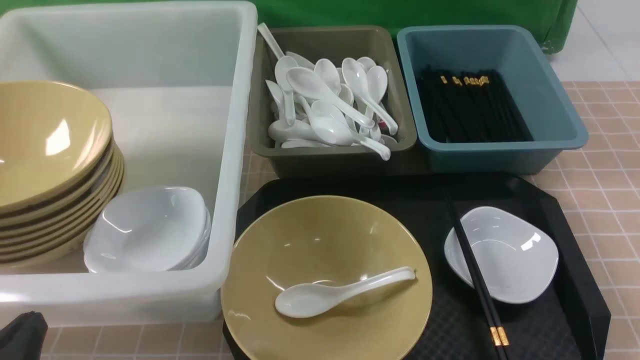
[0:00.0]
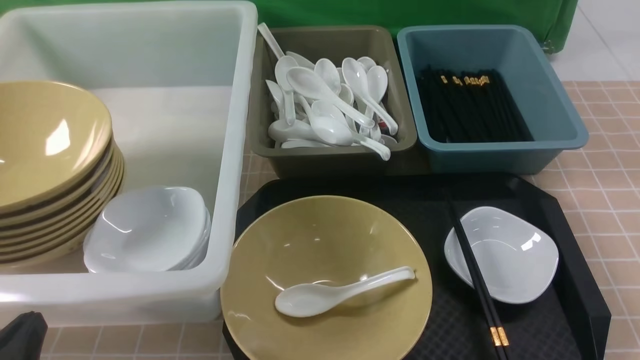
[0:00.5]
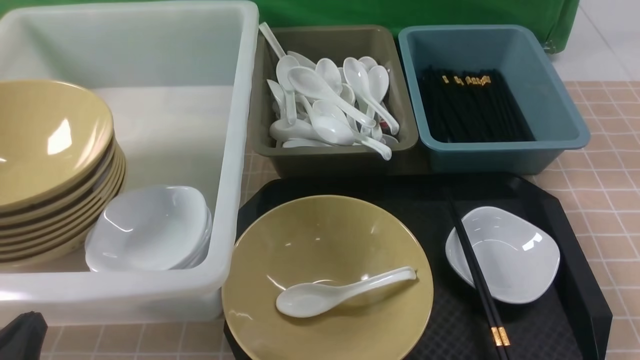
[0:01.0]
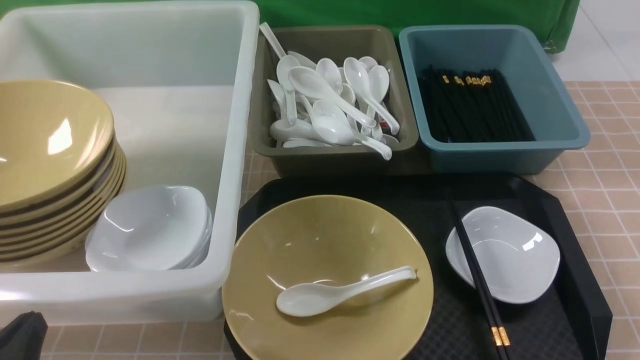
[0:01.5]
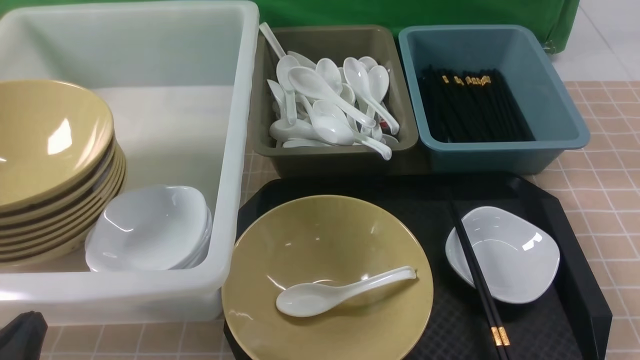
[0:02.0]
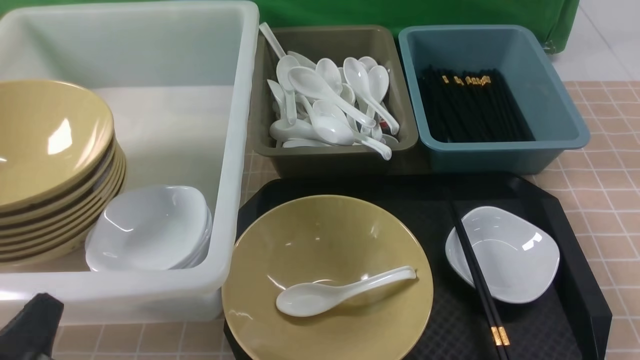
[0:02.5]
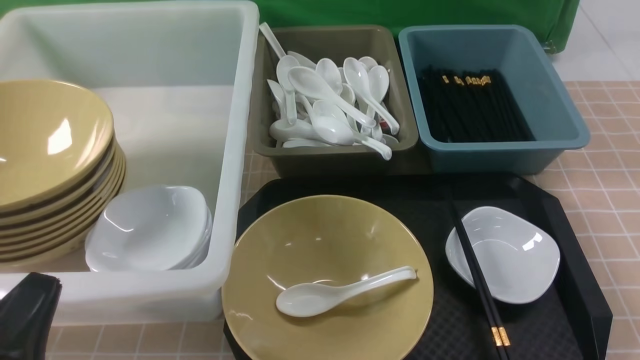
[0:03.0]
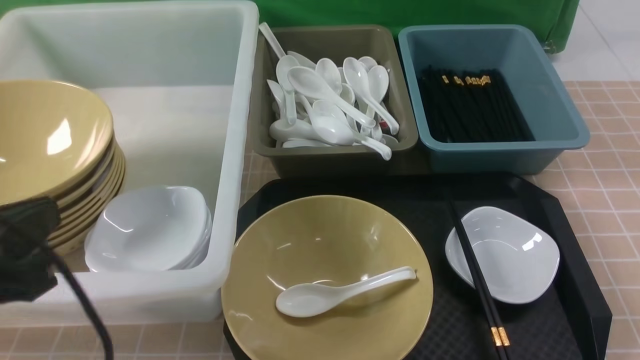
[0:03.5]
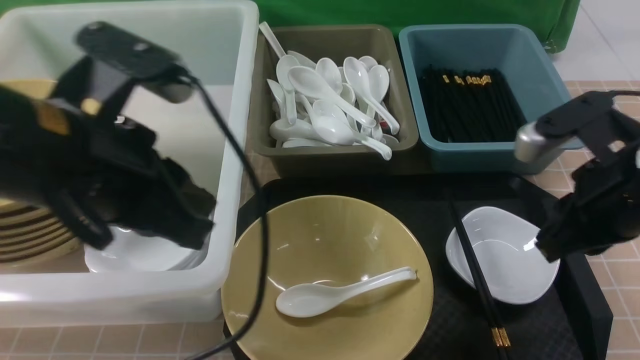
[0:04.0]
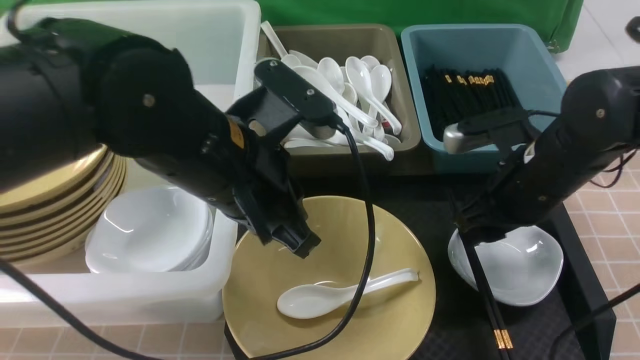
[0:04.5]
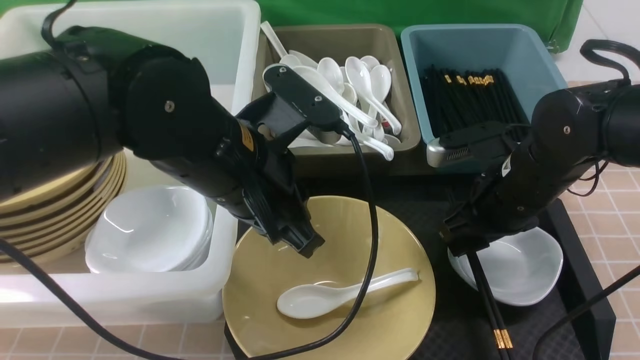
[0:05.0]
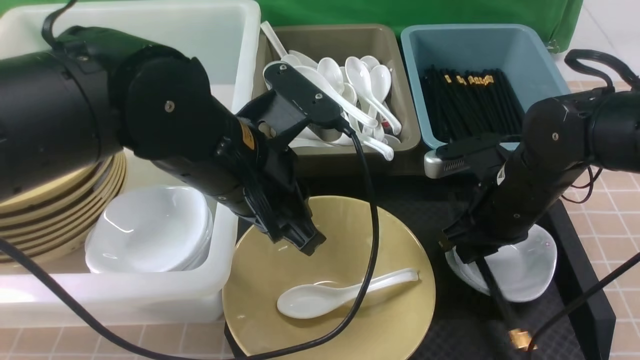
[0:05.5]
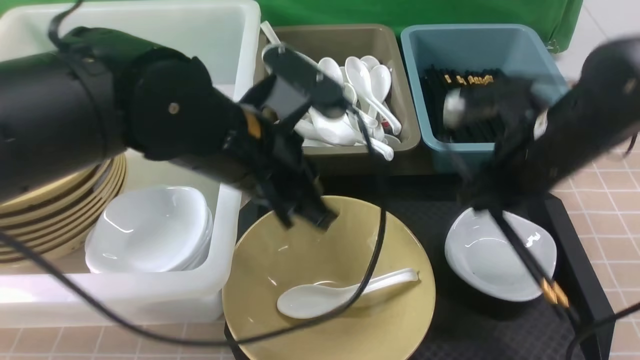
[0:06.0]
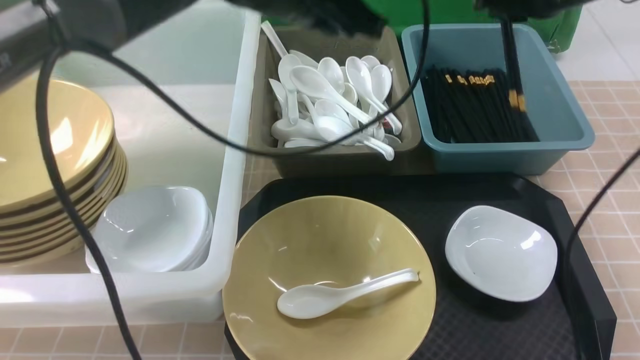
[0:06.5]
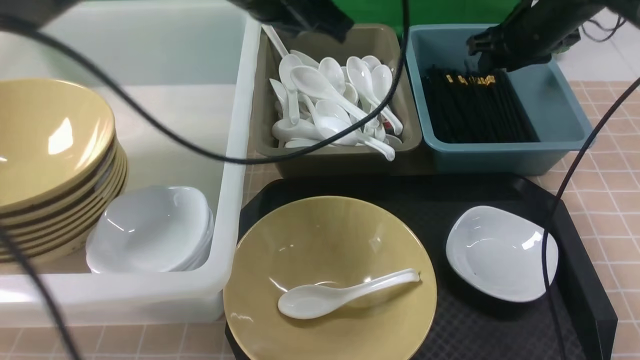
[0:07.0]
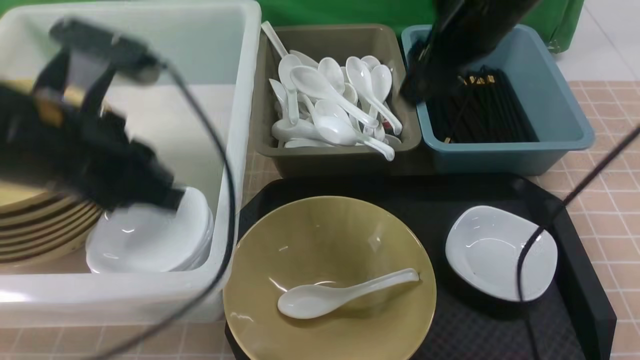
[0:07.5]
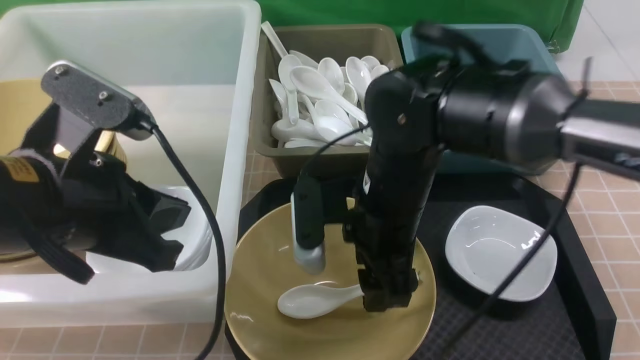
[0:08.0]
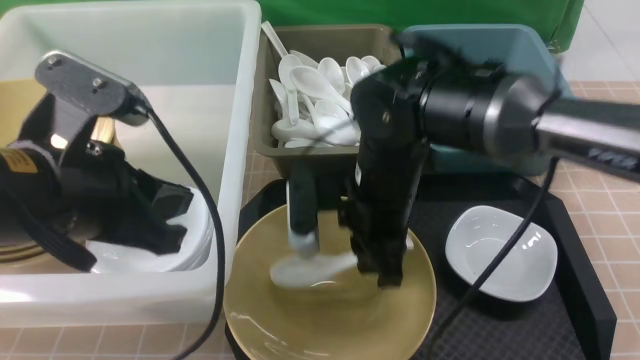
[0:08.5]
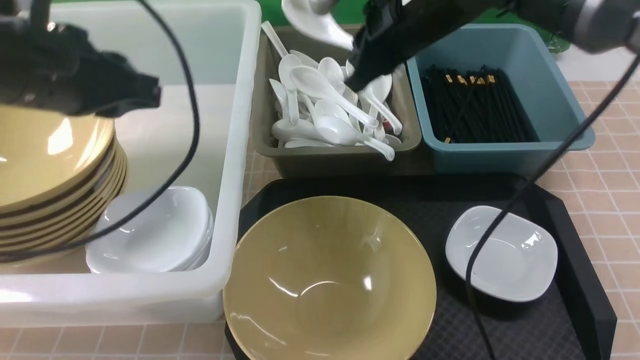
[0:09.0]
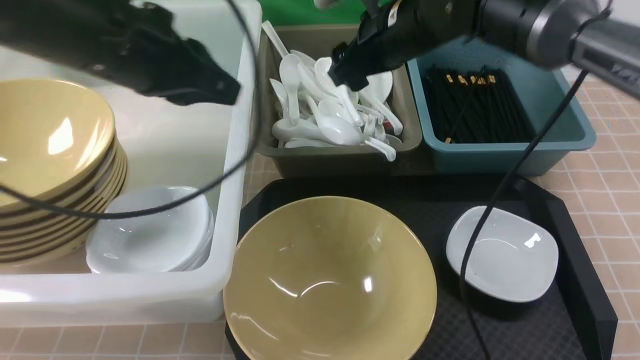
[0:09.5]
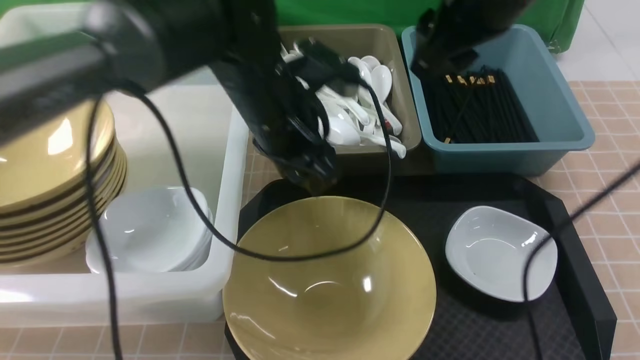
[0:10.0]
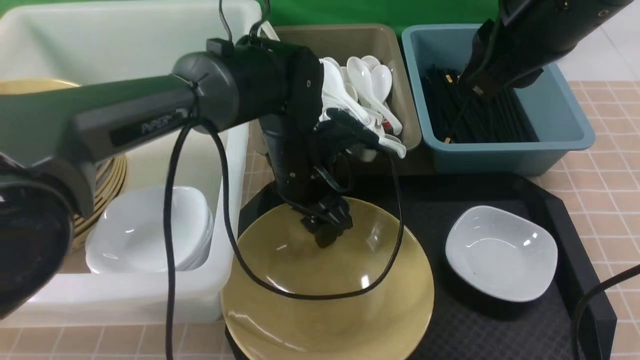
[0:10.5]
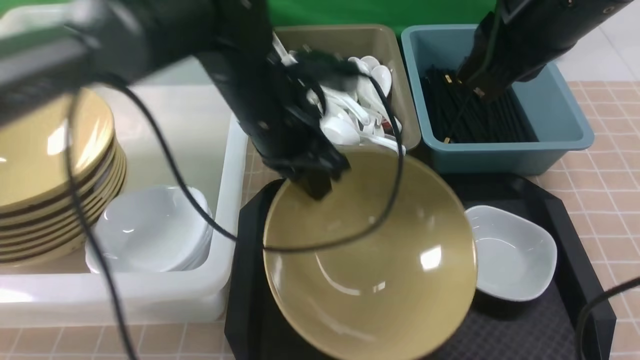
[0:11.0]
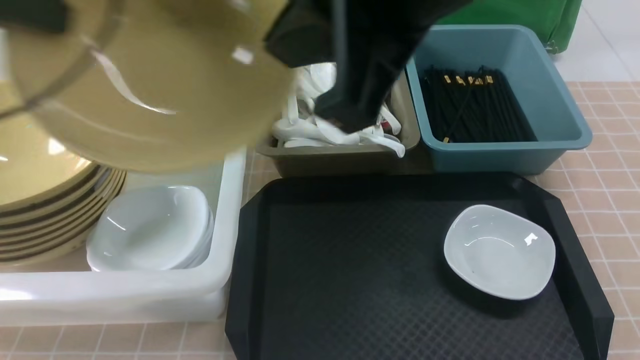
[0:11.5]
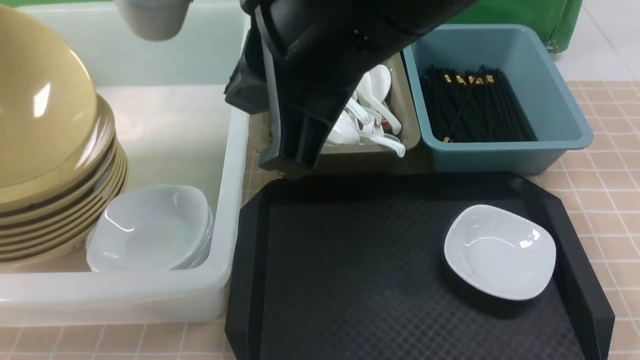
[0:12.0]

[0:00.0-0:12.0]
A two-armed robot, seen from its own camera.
Task of the whole recording: on brown table put chopsticks spoon bowls plates into blue grey white boxes.
Step, 0:00.0 to 0:05.5: use the right arm to grab the chopsticks.
Step, 0:06.0 to 0:07.0: use the right arm to put the chopsticks into the small storage box on the right.
Step, 0:07.5 to 0:08.5: use the right arm to grab the soup spoon in the middle.
Step, 0:09.0 to 0:09.5: use the right arm to put the soup spoon into the small storage box in the middle.
Step, 0:10.0 to 0:11.0: use the left arm to grab the yellow noodle bowl on the left.
0:00.0 to 0:02.0: Both grippers stay put.
0:02.0 to 0:04.0: The left gripper heads upward, forward and to the right, covering about 25 cm. Meanwhile the right gripper heads forward, upward and to the left, covering about 25 cm.
0:04.0 to 0:06.0: The left gripper goes some 10 cm to the right and forward, while the right gripper moves forward, roughly 10 cm, reaches some 10 cm downward, then returns, and opens and closes again.
0:06.0 to 0:08.0: The right gripper heads to the left, covering about 15 cm, goes forward and returns, about 15 cm each way, and opens its fingers. Meanwhile the left gripper moves to the left and backward, some 15 cm.
0:08.0 to 0:10.0: The right gripper goes approximately 20 cm upward and to the right, and closes and opens again, while the left gripper is displaced forward and to the right by about 20 cm, and opens.
0:10.0 to 0:12.0: The left gripper moves to the left, roughly 35 cm, and closes its fingers. Meanwhile the right gripper is displaced backward and to the left by some 15 cm, and closes its fingers.

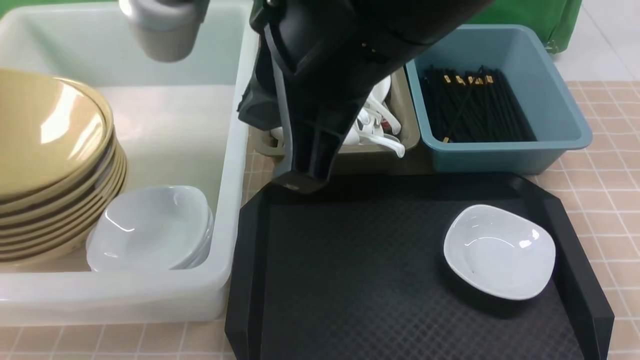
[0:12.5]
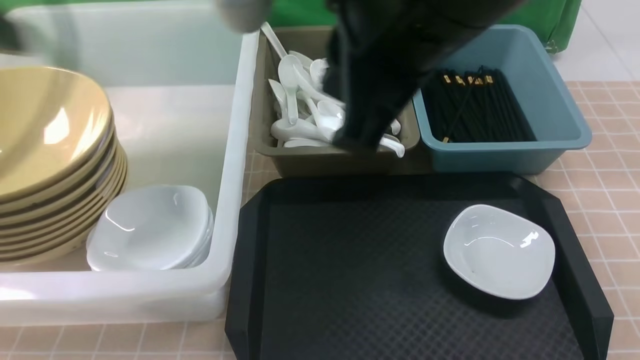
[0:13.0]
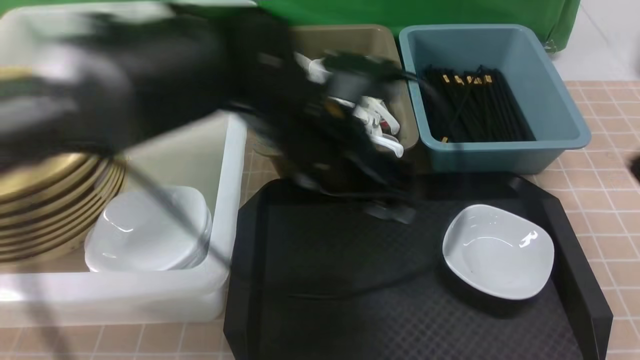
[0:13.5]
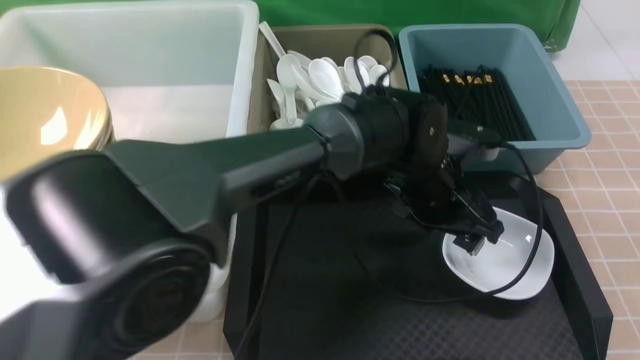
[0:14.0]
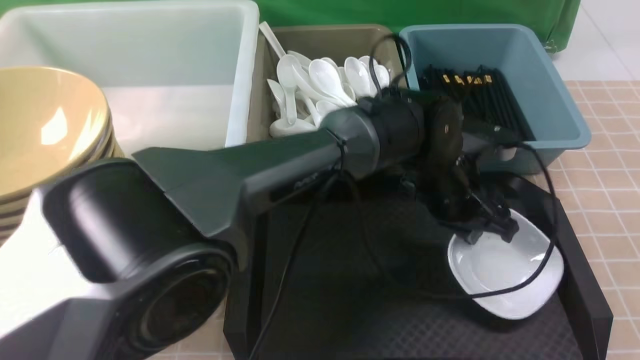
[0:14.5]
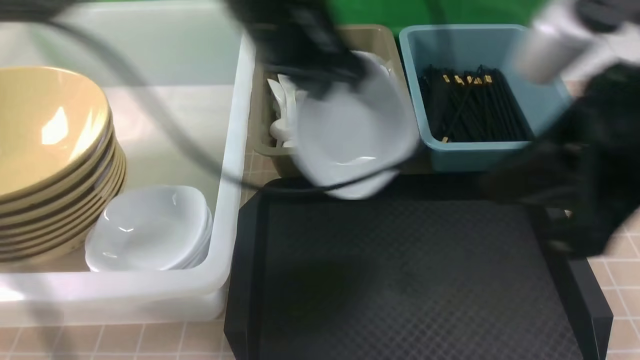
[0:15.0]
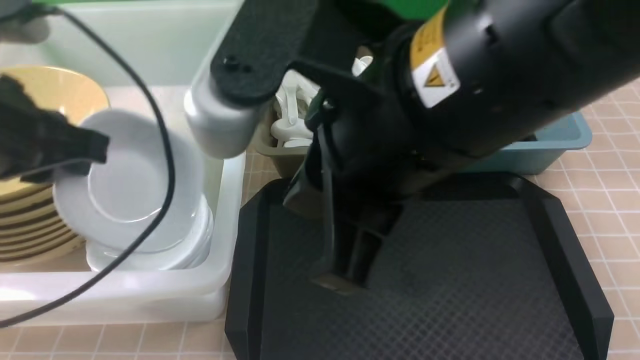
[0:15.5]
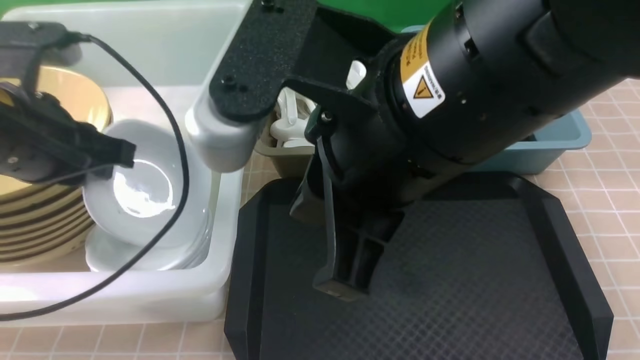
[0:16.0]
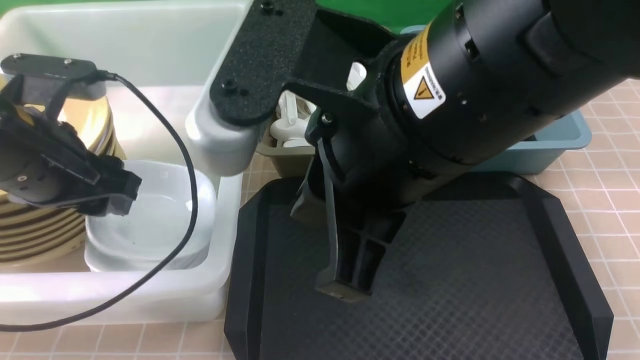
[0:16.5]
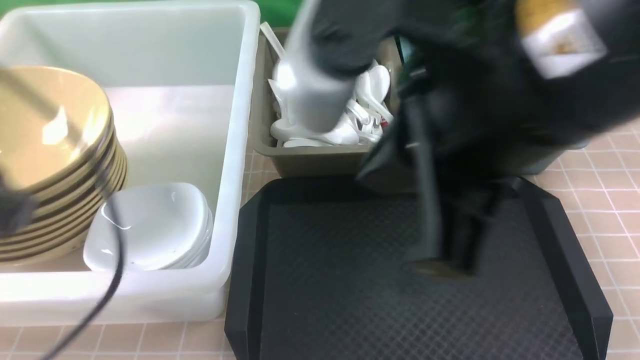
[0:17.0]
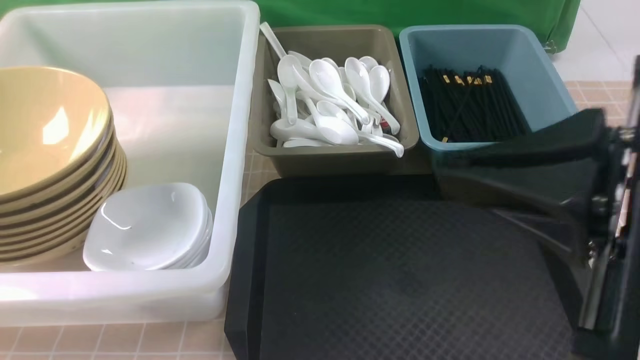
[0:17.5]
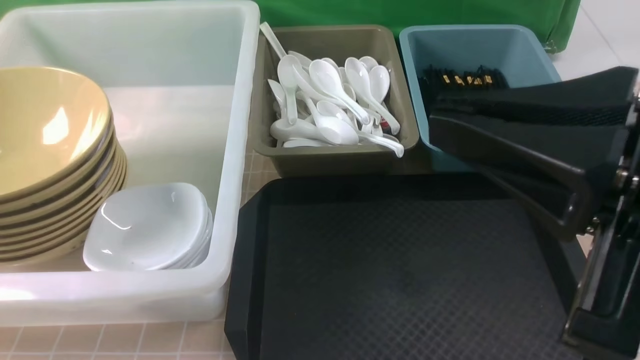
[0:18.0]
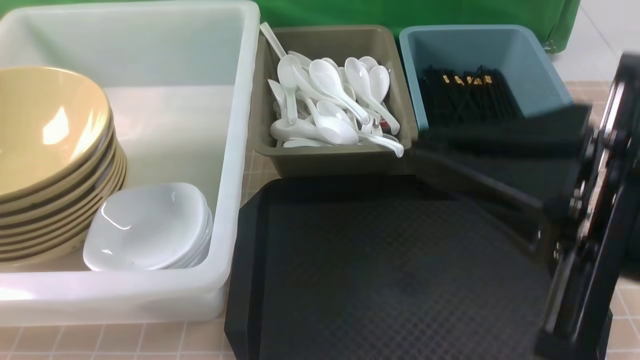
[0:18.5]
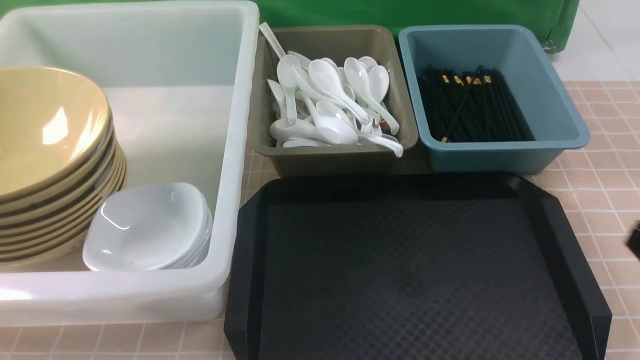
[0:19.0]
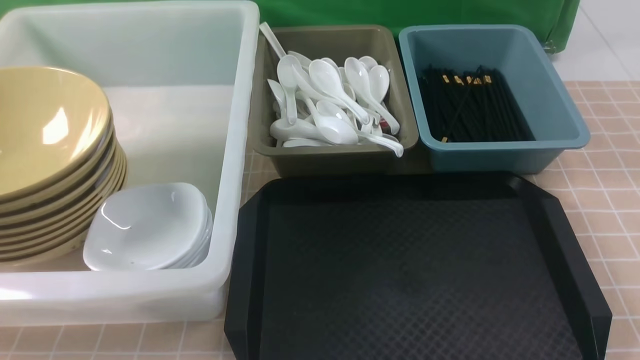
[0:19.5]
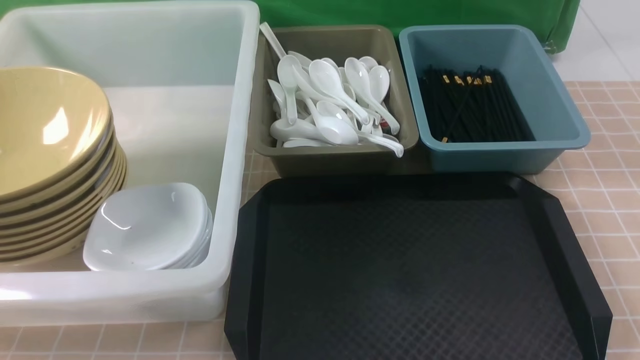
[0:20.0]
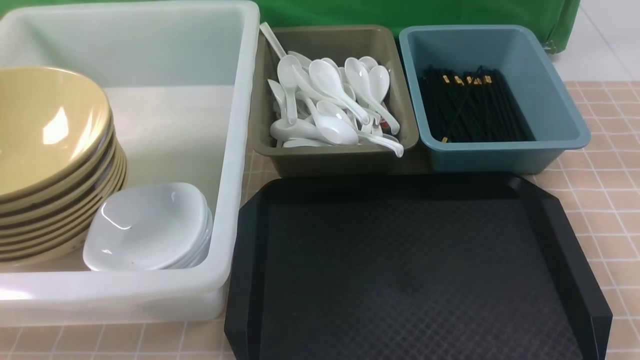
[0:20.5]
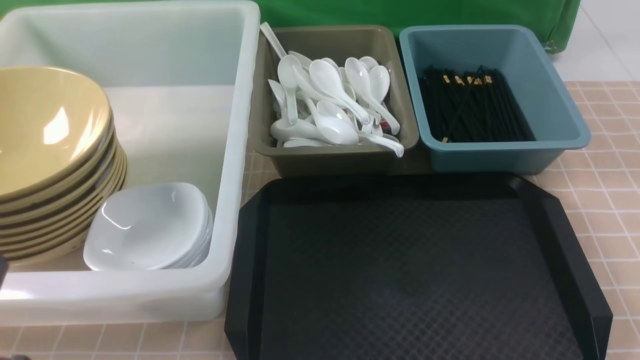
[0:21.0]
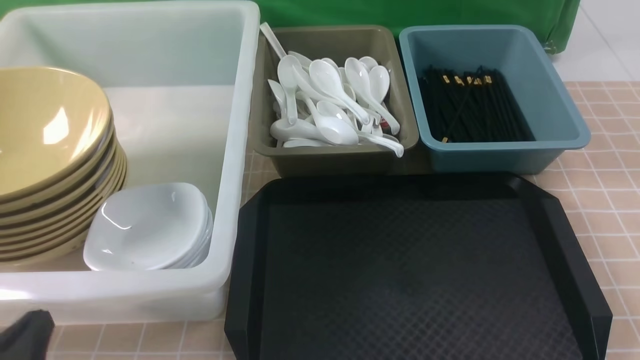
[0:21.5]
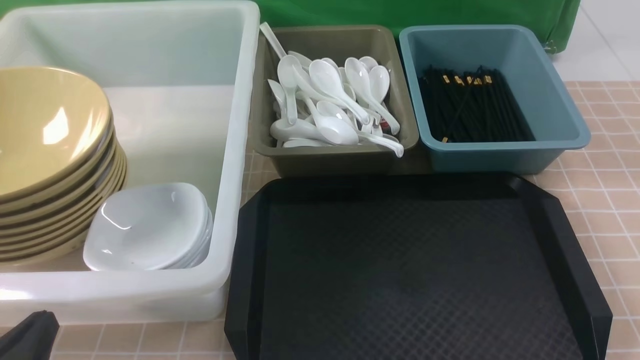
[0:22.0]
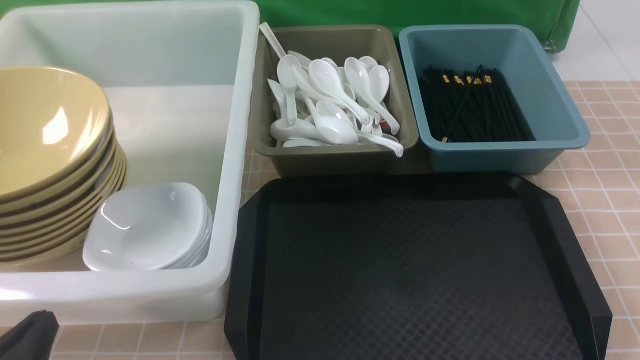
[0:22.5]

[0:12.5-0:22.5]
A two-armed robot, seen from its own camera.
Task of the whole recording: on brown table put chopsticks spoon bowls plates into blue grey white boxes.
Step, 0:13.0 to 0:14.5: use the left arm to grab the plate.
Step, 0:15.0 to 0:16.5: use the left arm to put the plate into the large storage box on the left.
0:12.5 to 0:14.5: The left gripper travels to the right by some 50 cm, and closes up.
0:14.5 to 0:16.5: The right gripper shifts some 20 cm to the left. The left gripper is displaced to the left by approximately 35 cm, and opens.
0:16.5 to 0:18.5: The right gripper travels to the right and backward by about 15 cm; the left gripper moves backward, about 20 cm, and closes.
0:18.5 to 0:20.5: The right gripper is displaced downward and to the right by some 25 cm.
0:20.5 to 0:22.5: The left gripper moves downward, some 10 cm.
